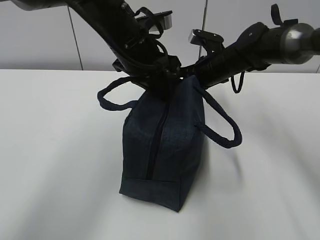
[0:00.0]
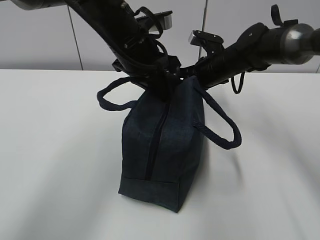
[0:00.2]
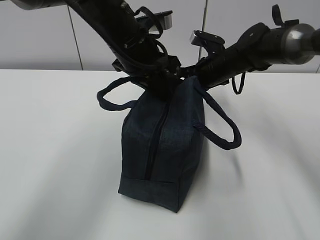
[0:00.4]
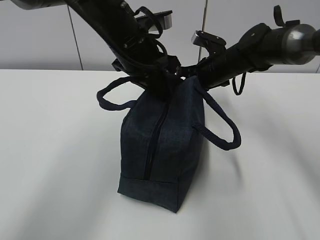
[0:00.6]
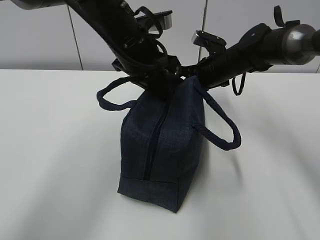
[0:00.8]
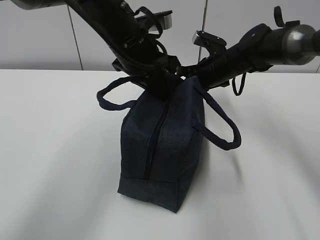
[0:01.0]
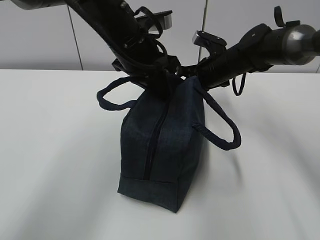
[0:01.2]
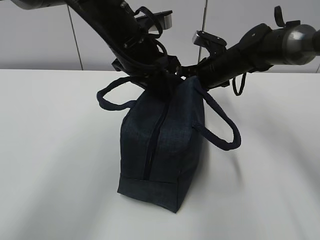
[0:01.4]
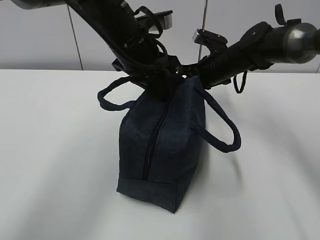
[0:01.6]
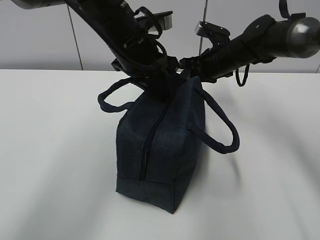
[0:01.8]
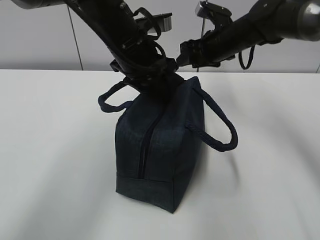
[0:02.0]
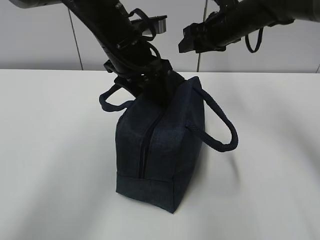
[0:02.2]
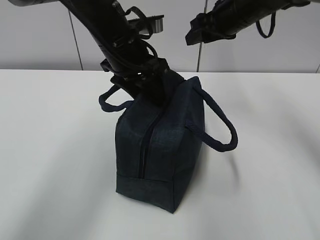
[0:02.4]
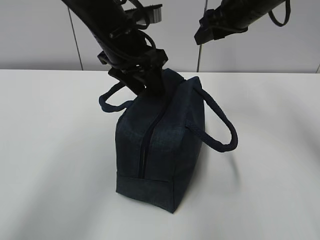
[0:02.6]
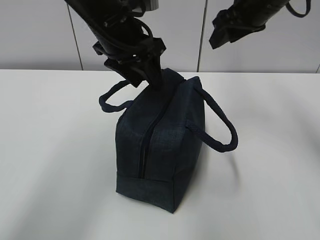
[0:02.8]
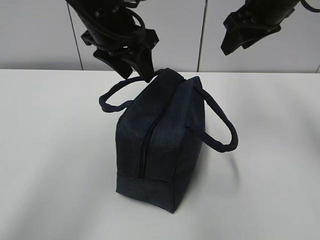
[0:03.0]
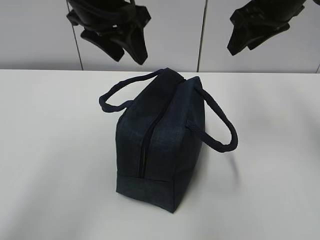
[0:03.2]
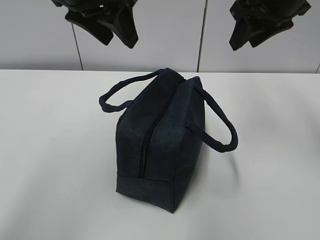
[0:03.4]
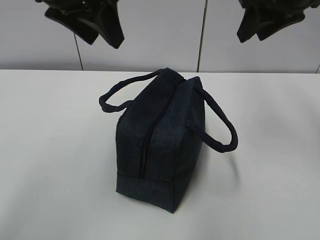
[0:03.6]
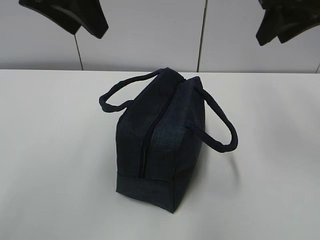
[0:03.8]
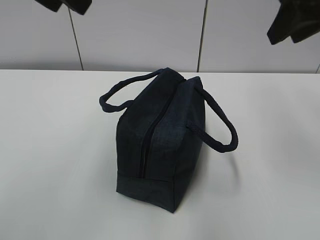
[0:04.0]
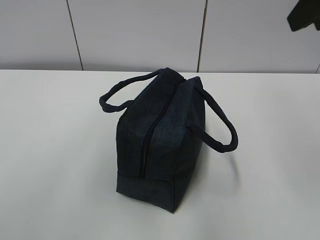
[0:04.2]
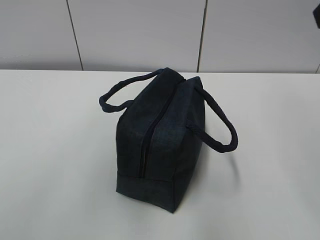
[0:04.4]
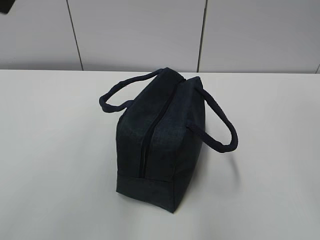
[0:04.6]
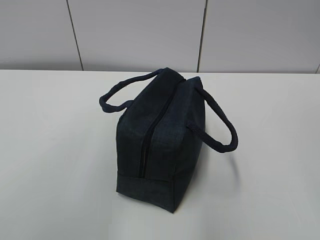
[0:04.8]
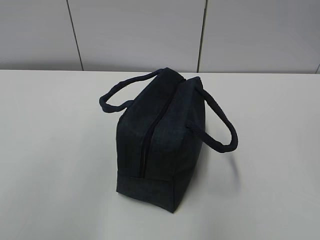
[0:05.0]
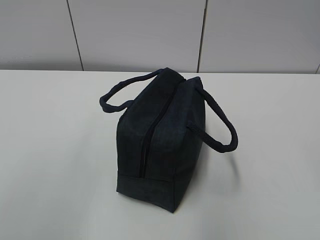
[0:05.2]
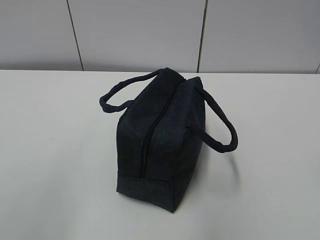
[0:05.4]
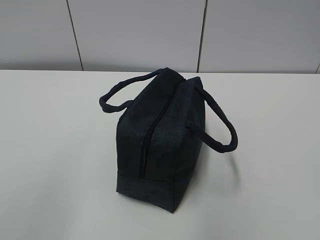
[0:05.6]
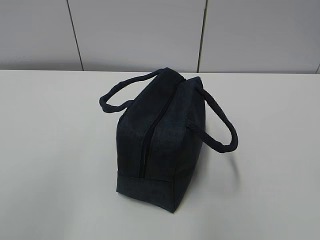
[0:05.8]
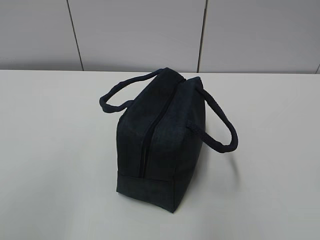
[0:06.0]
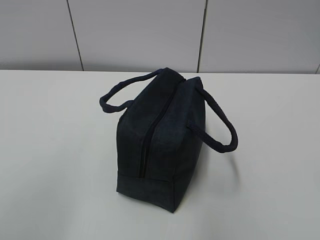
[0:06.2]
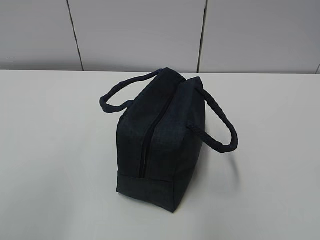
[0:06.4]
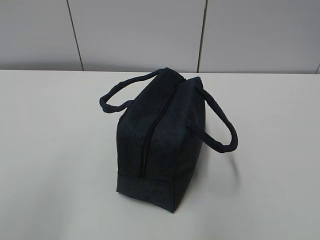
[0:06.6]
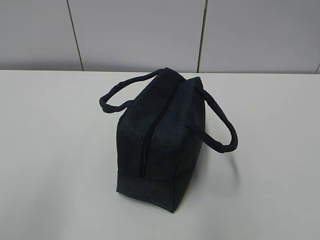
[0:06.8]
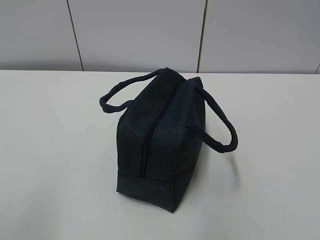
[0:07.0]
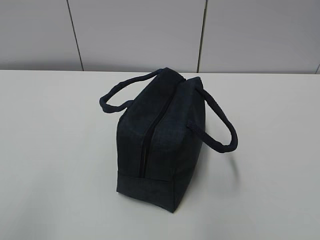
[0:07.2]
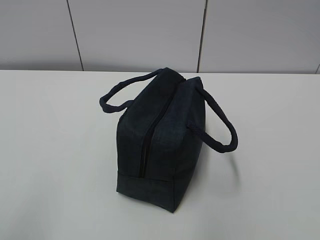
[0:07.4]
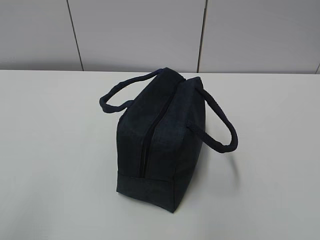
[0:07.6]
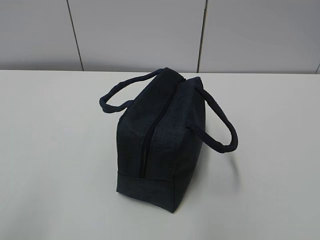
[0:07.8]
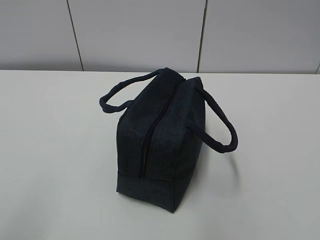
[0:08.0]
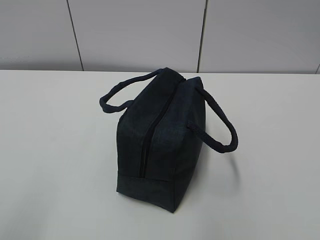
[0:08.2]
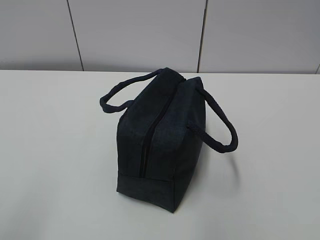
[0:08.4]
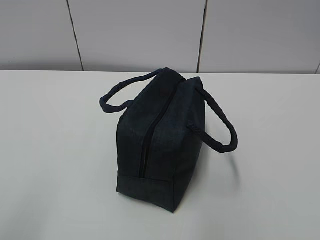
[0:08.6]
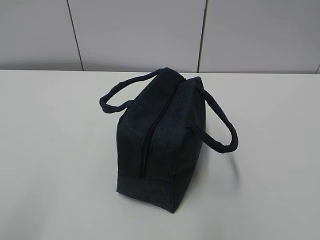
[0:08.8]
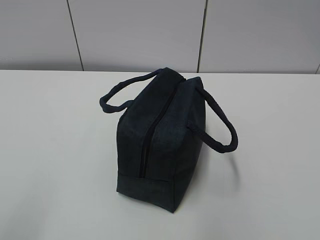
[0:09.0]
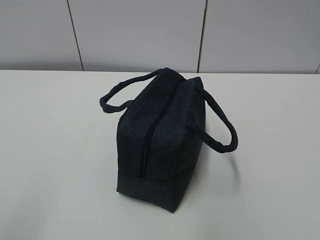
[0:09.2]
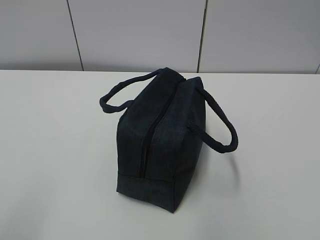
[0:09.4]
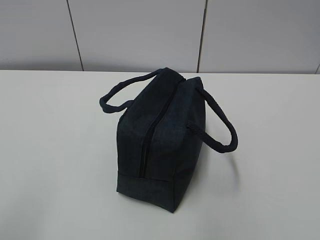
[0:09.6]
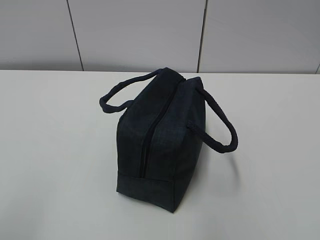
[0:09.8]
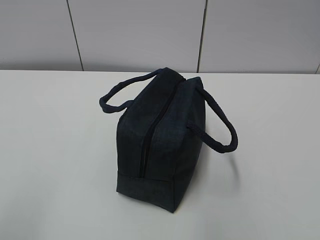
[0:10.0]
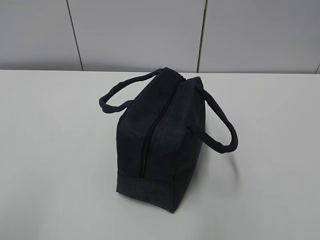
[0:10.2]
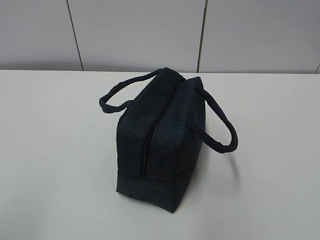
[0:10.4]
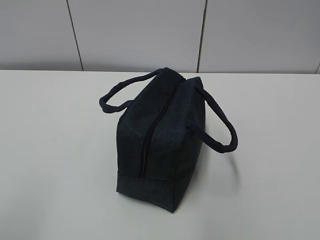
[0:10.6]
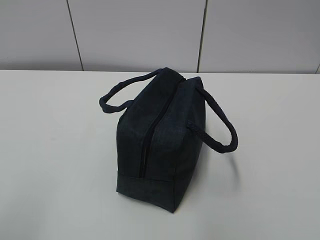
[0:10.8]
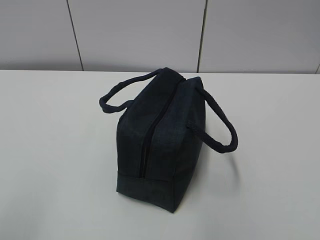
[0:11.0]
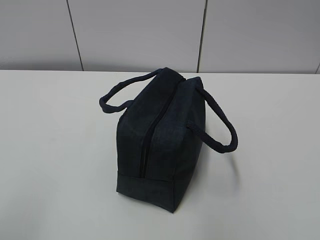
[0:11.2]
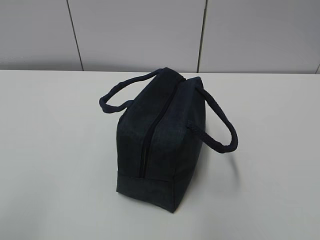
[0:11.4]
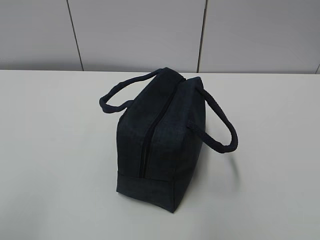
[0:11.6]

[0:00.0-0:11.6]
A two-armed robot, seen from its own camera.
0:00.0 to 0:01.4: The grippers move only a little.
0:01.4 to 0:02.8: The left gripper opens its fingers, while the right gripper goes approximately 15 cm upward, and opens its fingers.
0:02.8 to 0:04.4: The right gripper shifts about 25 cm backward and upward. Meanwhile the left gripper goes roughly 25 cm upward, backward and to the left.
0:10.2 to 0:11.6: Neither gripper changes place.

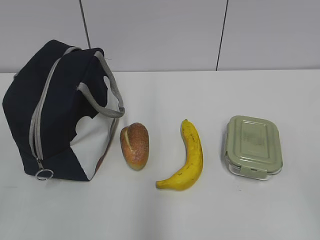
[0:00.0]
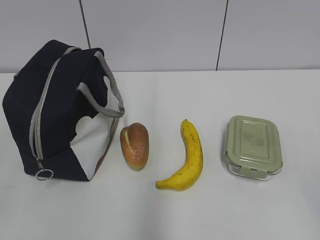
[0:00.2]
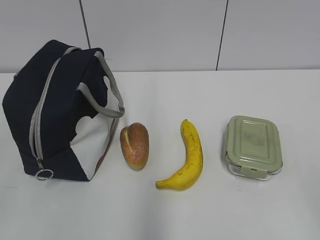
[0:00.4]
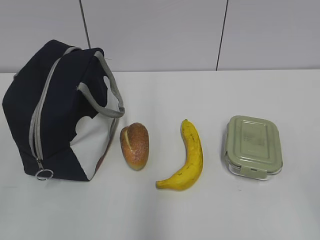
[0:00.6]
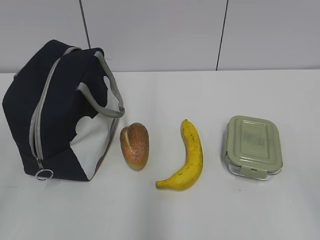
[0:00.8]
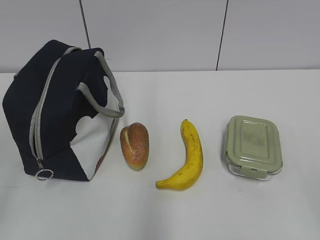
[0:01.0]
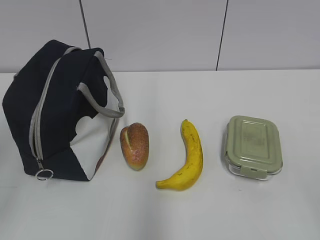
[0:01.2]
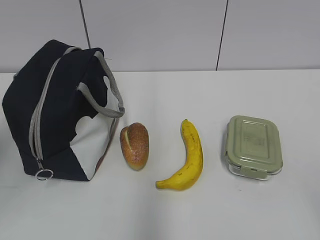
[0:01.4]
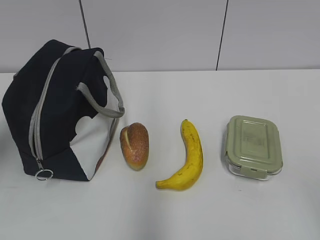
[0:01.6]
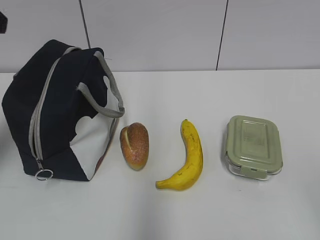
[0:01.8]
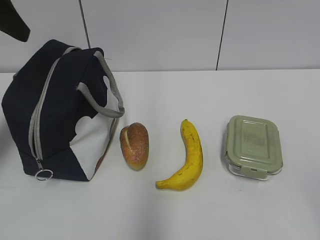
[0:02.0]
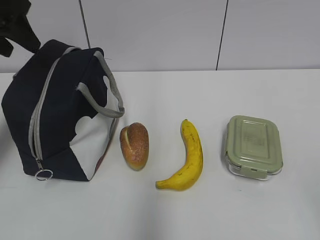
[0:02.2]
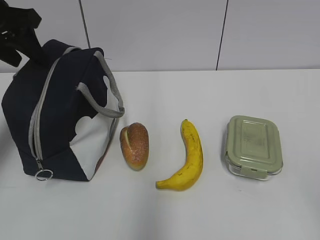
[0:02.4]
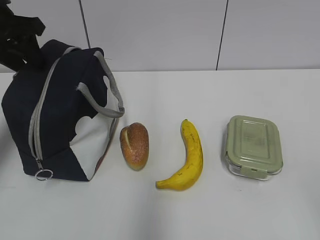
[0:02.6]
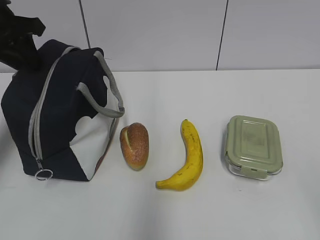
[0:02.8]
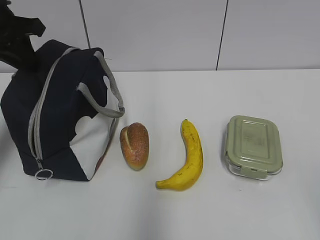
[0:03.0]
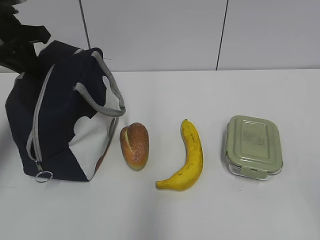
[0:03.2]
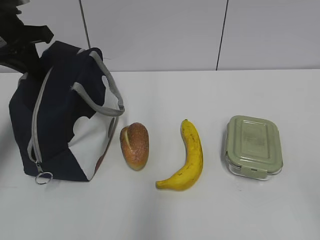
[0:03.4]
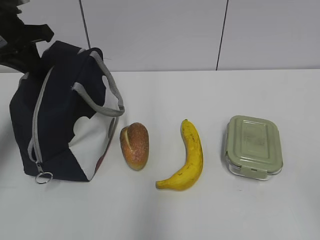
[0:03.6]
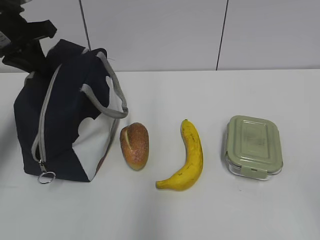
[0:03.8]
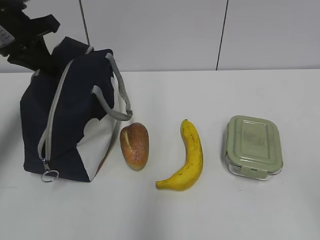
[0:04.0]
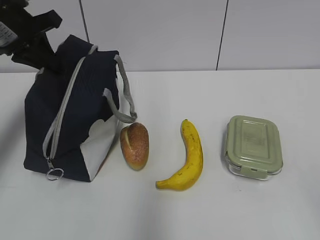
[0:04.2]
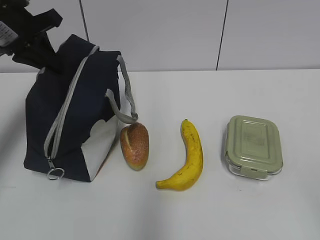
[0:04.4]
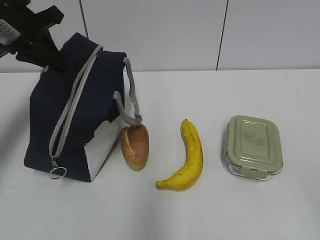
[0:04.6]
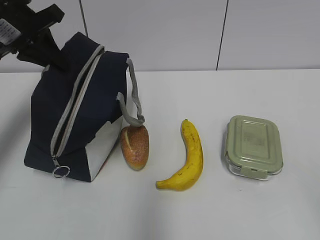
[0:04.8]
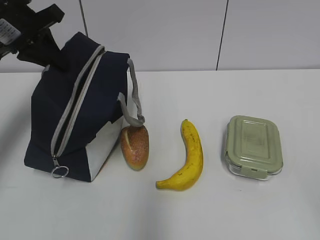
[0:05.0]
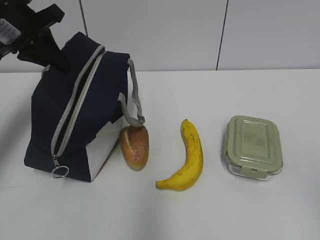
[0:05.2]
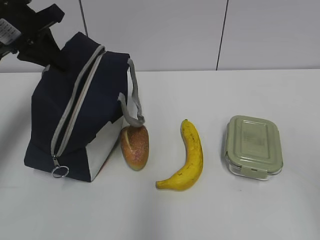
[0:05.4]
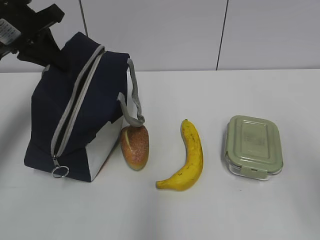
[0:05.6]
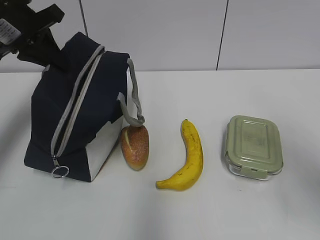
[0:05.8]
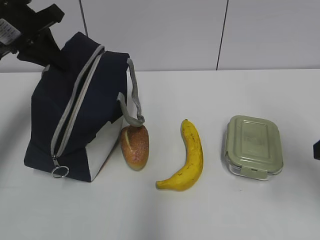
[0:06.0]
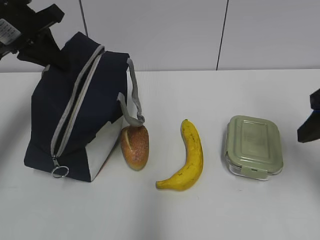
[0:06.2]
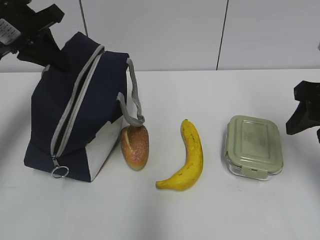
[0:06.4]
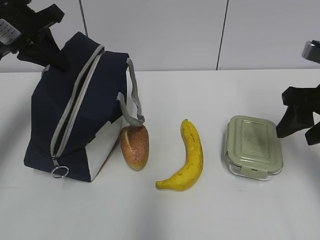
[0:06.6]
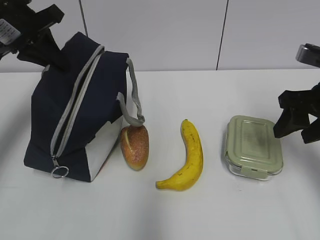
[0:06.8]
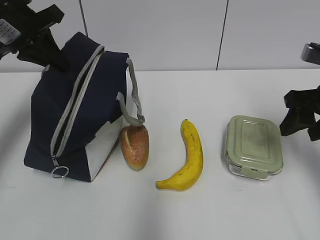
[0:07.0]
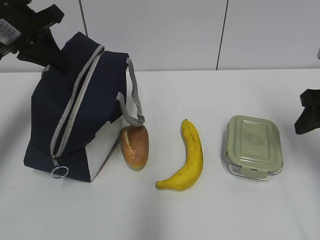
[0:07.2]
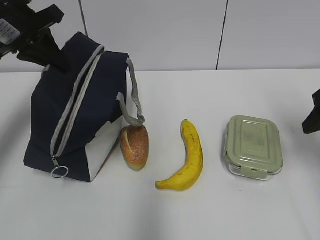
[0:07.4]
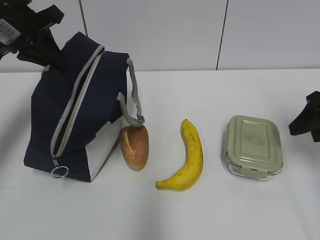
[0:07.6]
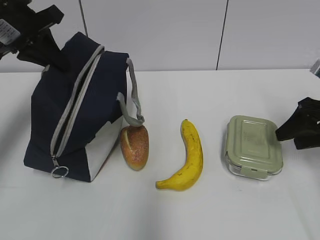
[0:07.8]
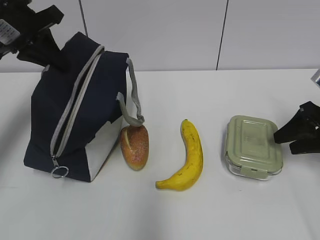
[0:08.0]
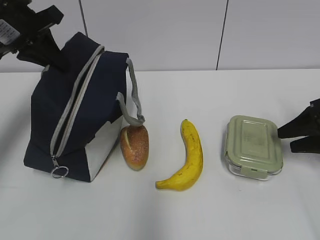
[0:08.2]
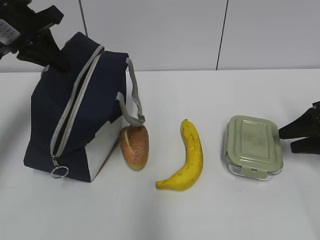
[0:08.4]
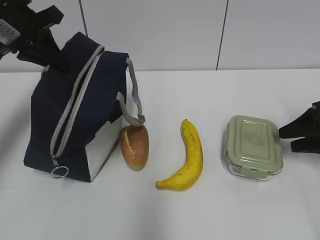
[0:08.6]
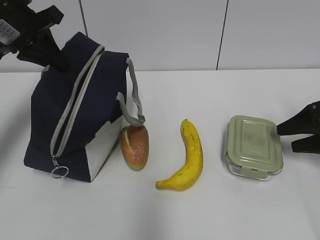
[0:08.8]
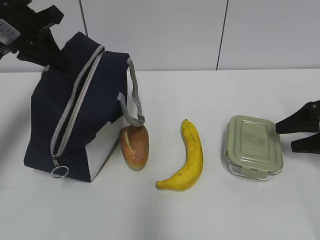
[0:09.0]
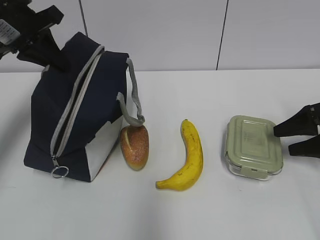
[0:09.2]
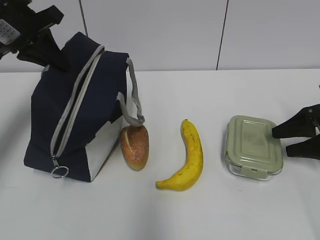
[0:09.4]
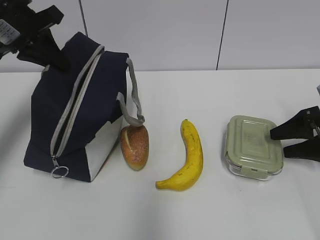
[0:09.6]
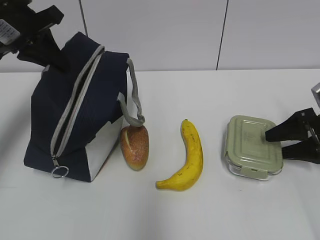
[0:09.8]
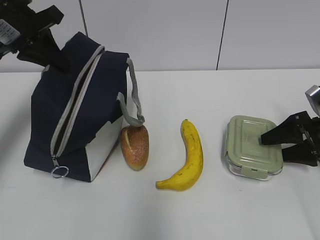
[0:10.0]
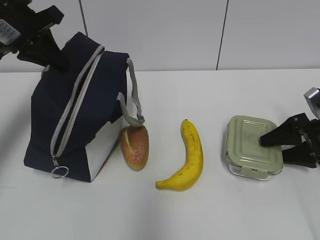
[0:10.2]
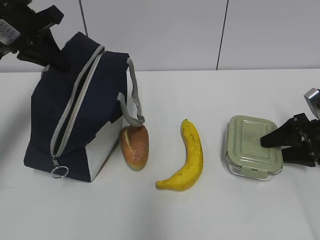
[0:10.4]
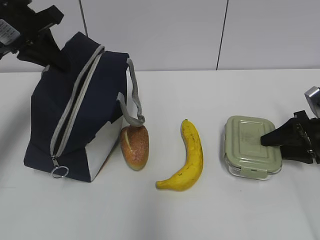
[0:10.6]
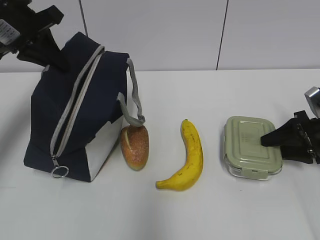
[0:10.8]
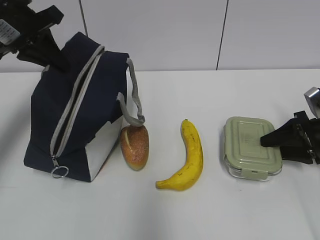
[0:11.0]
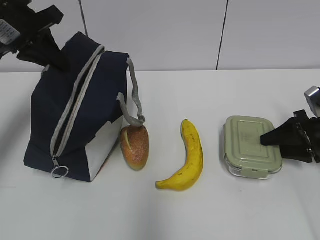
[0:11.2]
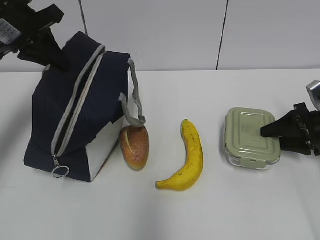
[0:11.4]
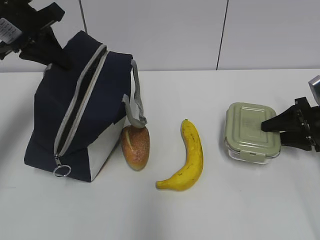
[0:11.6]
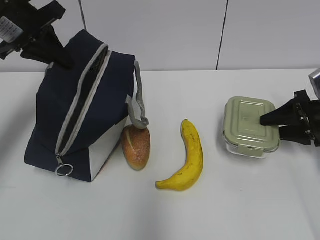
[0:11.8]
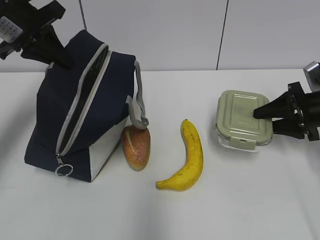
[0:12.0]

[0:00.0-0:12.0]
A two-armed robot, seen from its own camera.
0:01.6 to 0:03.0: The left gripper goes roughly 20 cm forward, and closes its fingers.
0:03.0 to 0:04.4: The grippers stay close to where they were, moving slightly.
0:04.4 to 0:06.0: The right gripper travels forward by approximately 20 cm.
0:06.0 to 0:07.6: The right gripper travels forward, downward and to the right by about 15 cm.
0:07.6 to 0:09.0: The right gripper shifts approximately 5 cm downward.
0:09.0 to 0:12.0: The grippers make only small movements.
